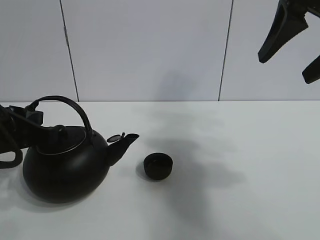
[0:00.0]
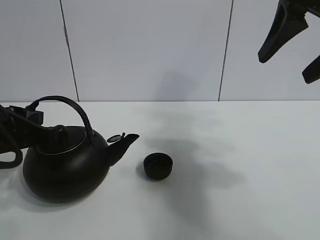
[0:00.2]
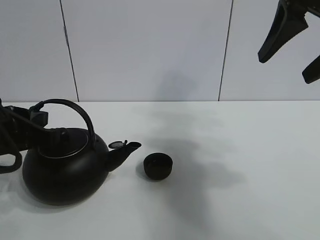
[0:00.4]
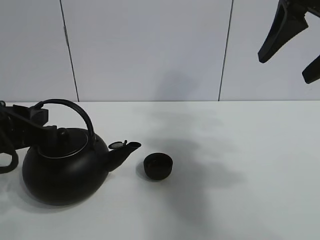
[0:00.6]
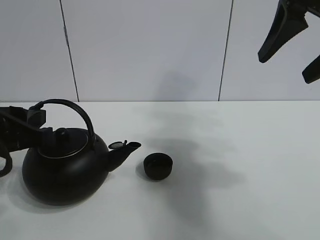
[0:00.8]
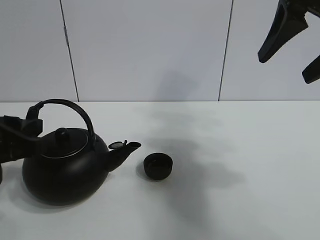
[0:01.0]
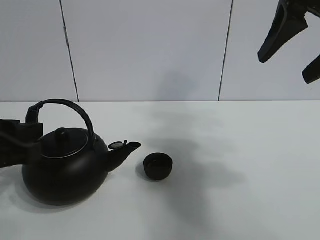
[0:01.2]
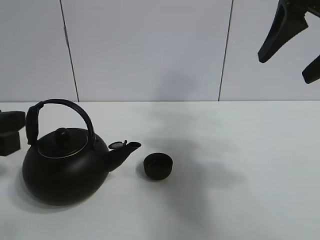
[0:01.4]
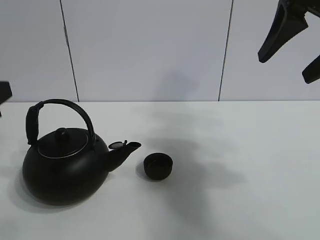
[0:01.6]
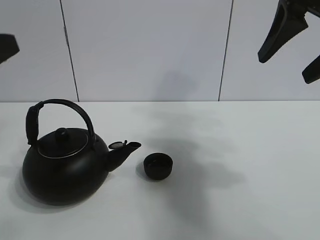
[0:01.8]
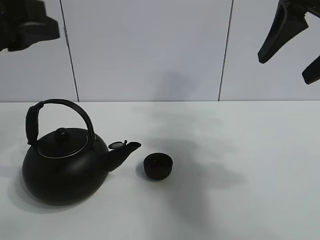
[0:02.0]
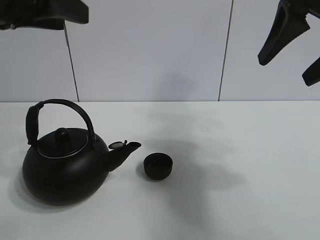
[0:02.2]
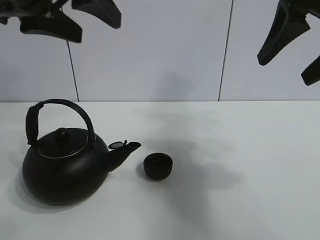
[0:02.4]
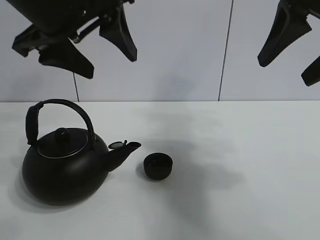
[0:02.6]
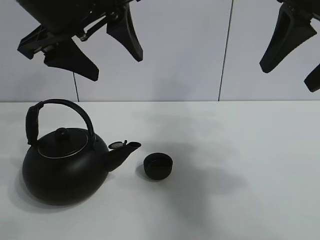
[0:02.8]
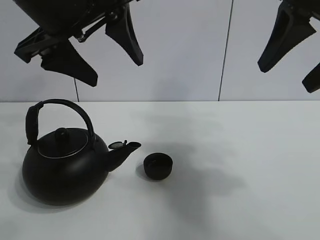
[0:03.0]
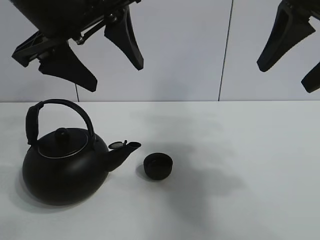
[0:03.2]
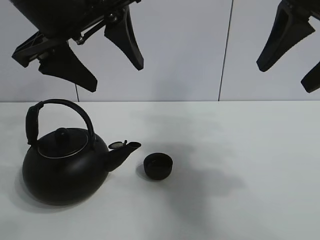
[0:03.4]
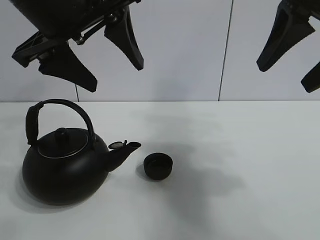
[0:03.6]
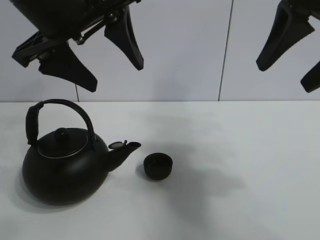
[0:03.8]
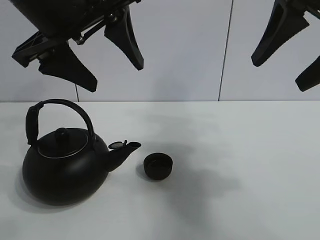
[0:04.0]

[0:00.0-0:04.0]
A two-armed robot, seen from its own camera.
Task of the whole recording: pour tea into the teacup.
0:00.0 to 0:01.4: The left gripper moves approximately 5 cm, and opens.
0:01.4 to 0:02.6: The left gripper is displaced upward, to the right and forward by approximately 20 cm, and opens its fingers.
0:02.6 to 0:04.0: The grippers make only small movements.
